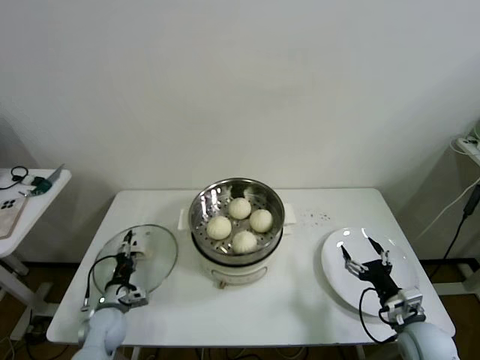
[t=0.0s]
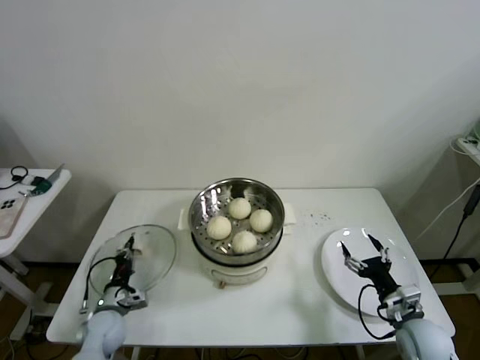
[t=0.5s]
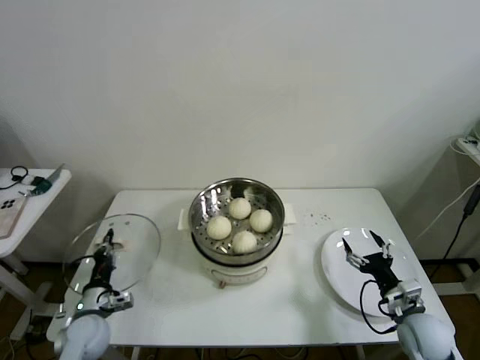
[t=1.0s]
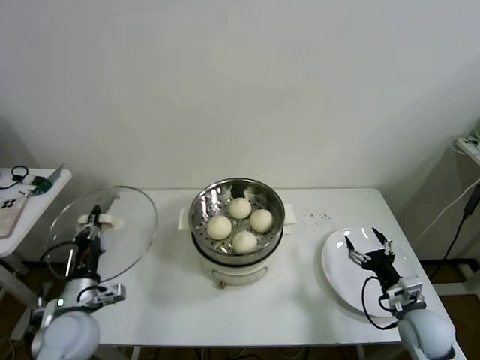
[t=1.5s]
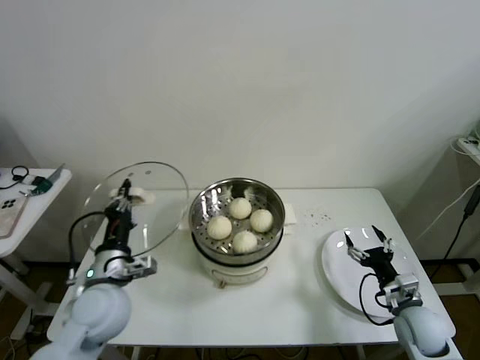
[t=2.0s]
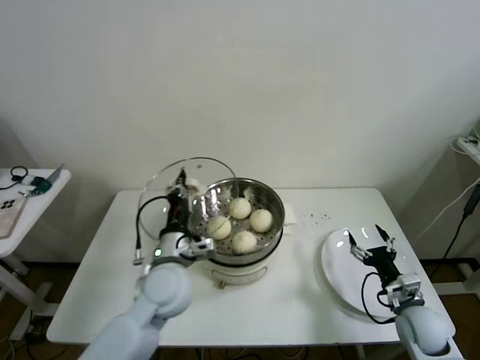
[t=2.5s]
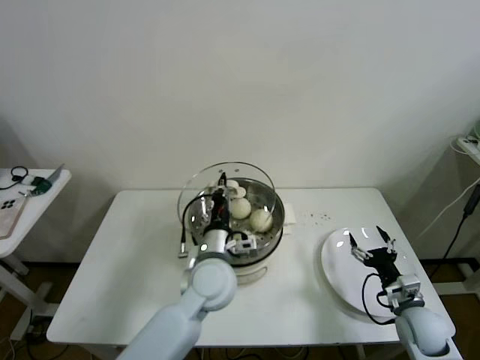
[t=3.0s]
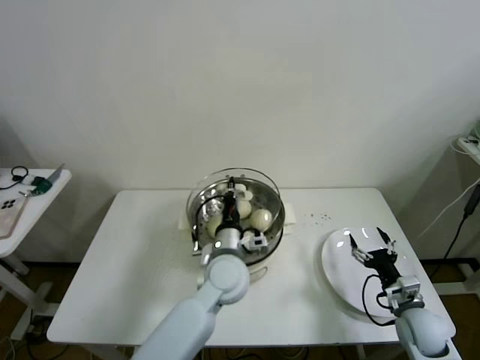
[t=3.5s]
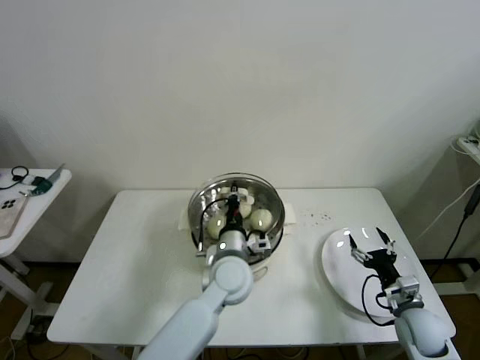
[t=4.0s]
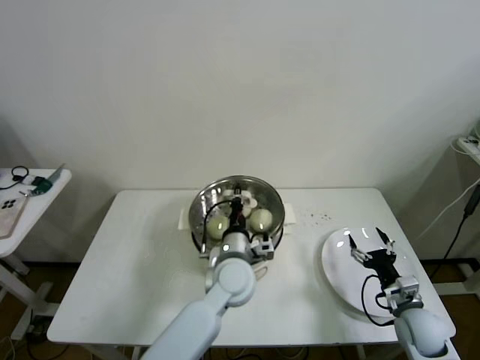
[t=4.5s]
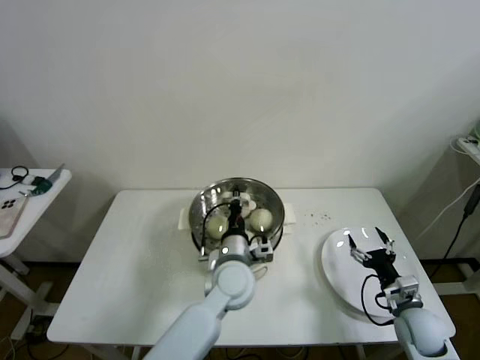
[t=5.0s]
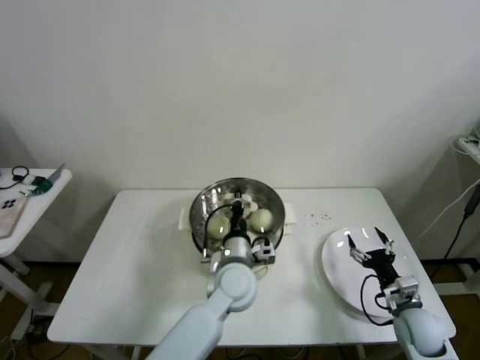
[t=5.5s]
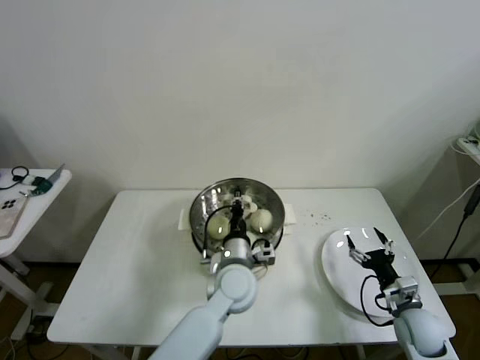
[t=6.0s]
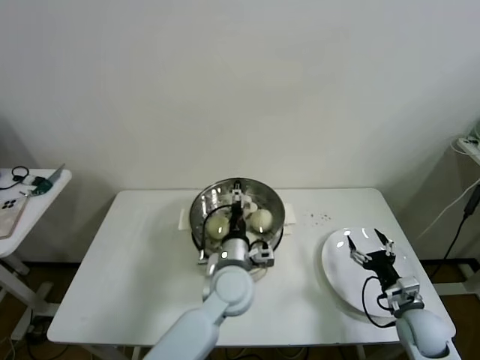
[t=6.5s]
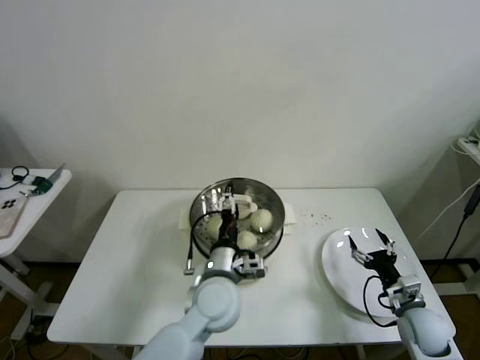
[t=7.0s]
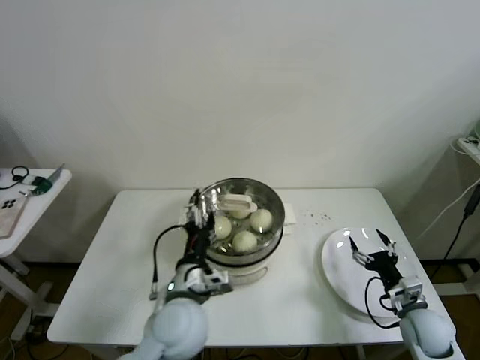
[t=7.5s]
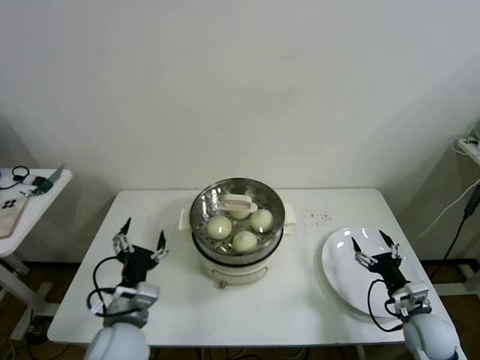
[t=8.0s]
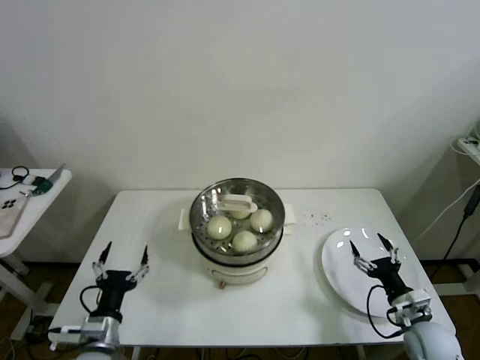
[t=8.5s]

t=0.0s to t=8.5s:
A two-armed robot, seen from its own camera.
Task of the whole recording: take steamed baozi put them in steamer then cover it.
Step, t=0.5s to t=6.5s: Place the pot lid on the steamer with left gripper.
t=0.0s to t=2.0s: The left gripper travels upward by some 20 cm, and closes its fingers.
t=2.0s to t=4.0s: The left gripper heads to the right, covering roughly 25 cm.
t=4.0s to t=6.5s: The left gripper opens.
t=6.5s to t=8.5s: The left gripper moves to the left and backward, some 30 cm.
